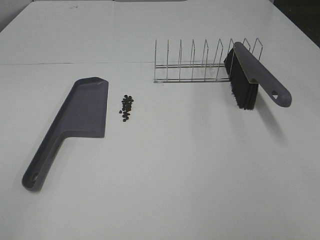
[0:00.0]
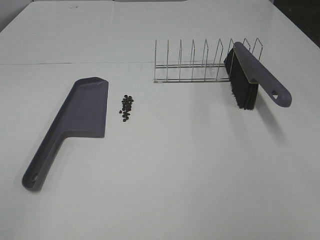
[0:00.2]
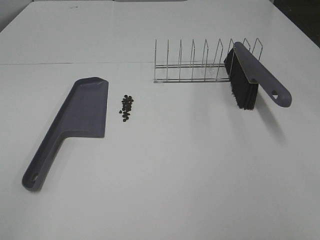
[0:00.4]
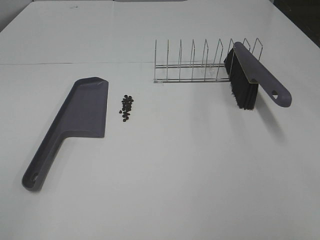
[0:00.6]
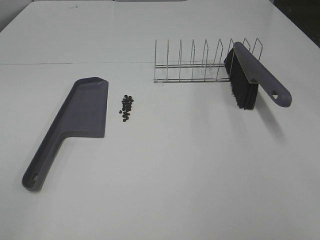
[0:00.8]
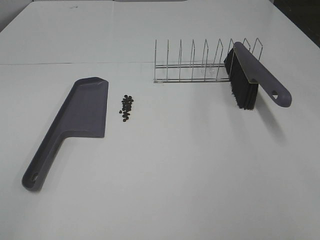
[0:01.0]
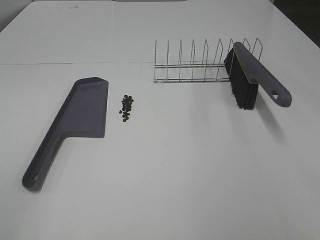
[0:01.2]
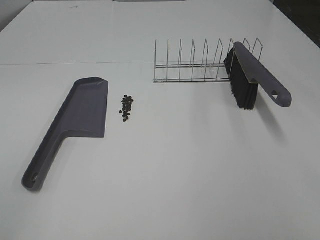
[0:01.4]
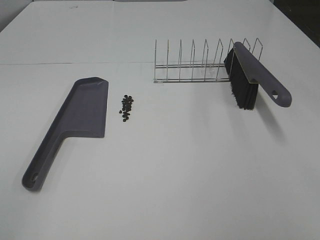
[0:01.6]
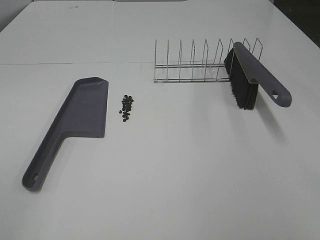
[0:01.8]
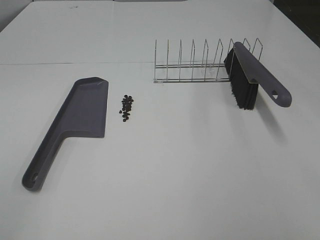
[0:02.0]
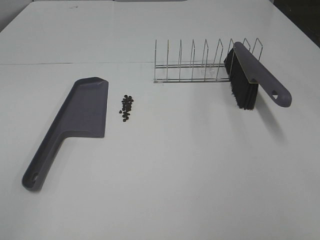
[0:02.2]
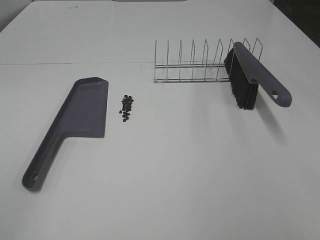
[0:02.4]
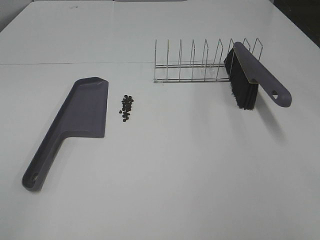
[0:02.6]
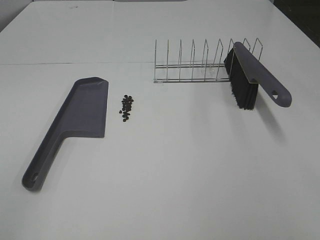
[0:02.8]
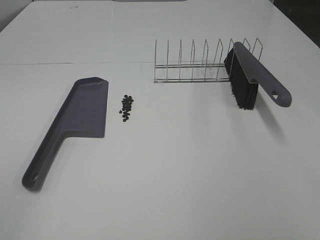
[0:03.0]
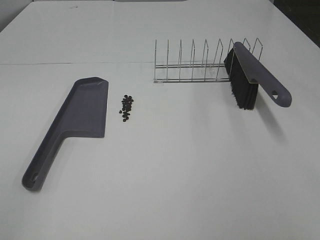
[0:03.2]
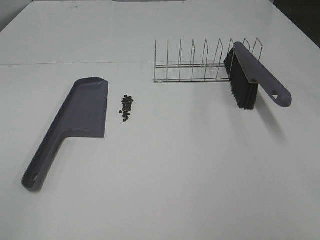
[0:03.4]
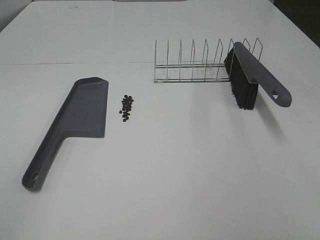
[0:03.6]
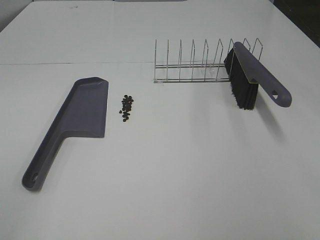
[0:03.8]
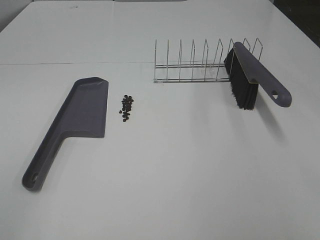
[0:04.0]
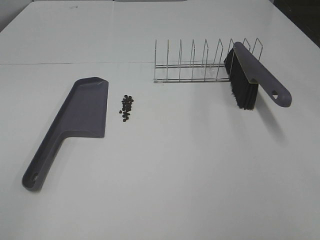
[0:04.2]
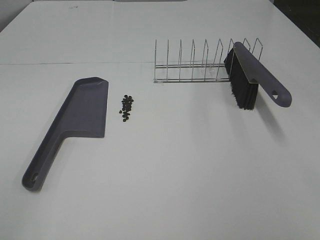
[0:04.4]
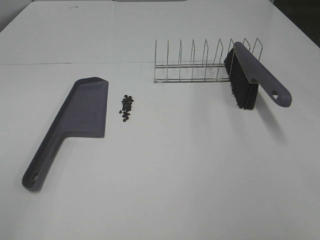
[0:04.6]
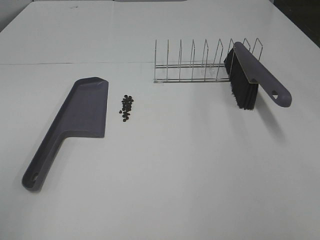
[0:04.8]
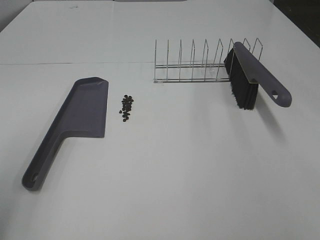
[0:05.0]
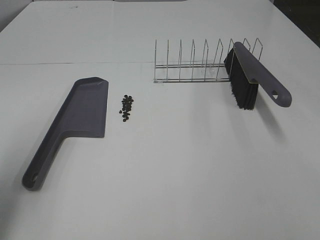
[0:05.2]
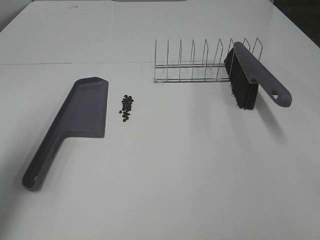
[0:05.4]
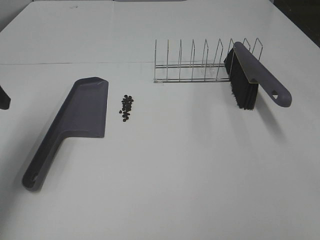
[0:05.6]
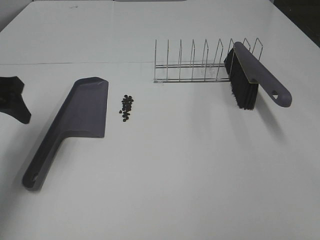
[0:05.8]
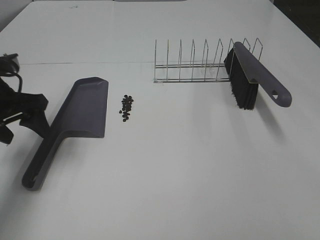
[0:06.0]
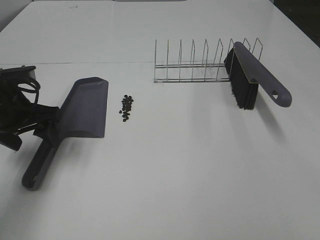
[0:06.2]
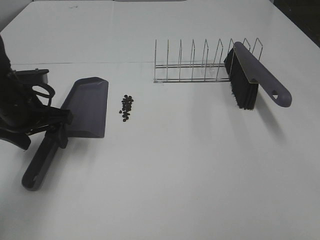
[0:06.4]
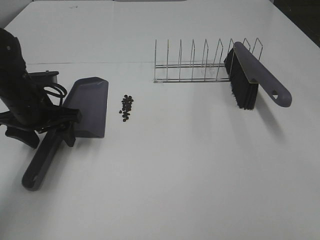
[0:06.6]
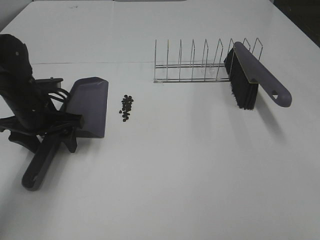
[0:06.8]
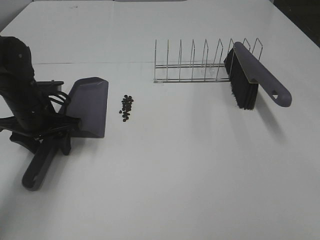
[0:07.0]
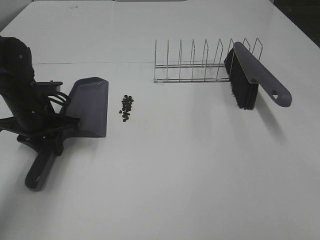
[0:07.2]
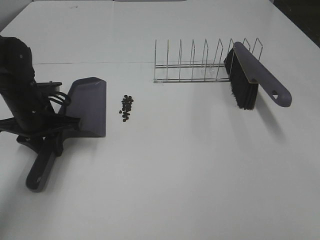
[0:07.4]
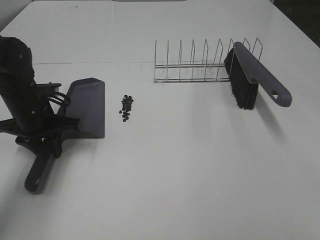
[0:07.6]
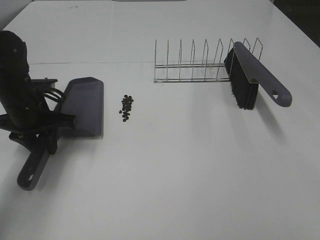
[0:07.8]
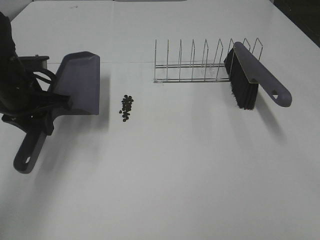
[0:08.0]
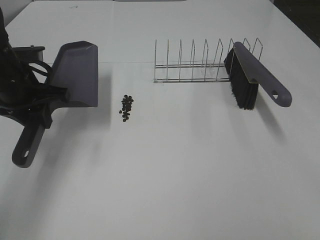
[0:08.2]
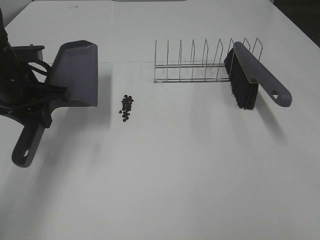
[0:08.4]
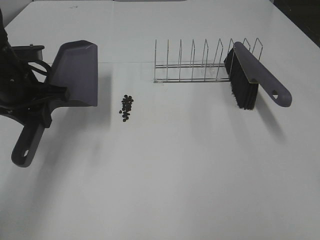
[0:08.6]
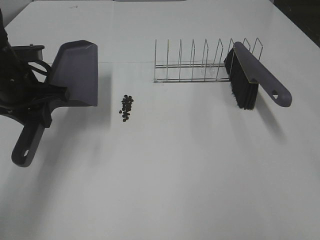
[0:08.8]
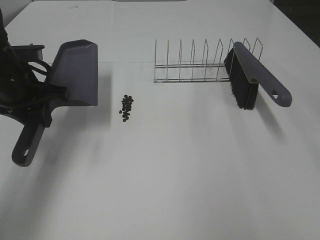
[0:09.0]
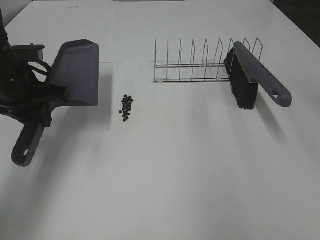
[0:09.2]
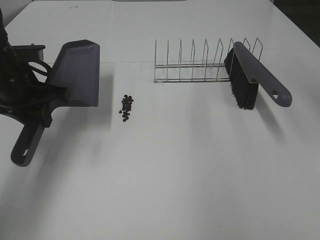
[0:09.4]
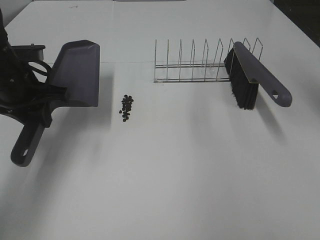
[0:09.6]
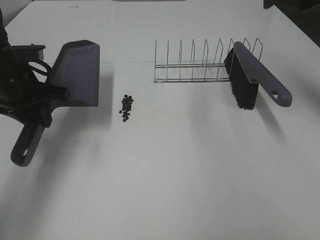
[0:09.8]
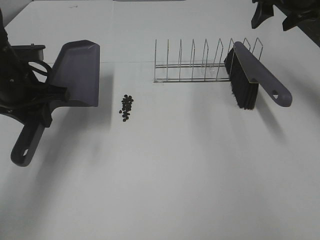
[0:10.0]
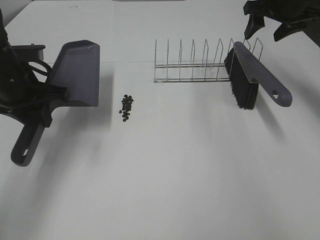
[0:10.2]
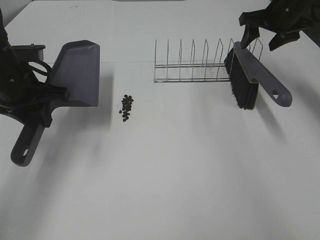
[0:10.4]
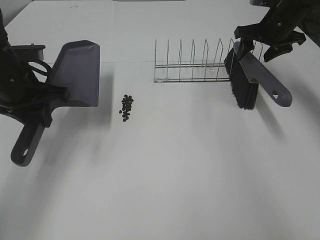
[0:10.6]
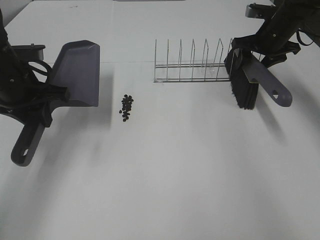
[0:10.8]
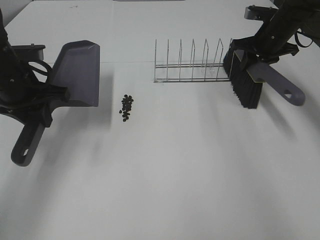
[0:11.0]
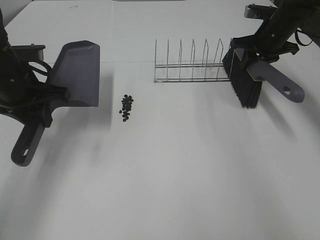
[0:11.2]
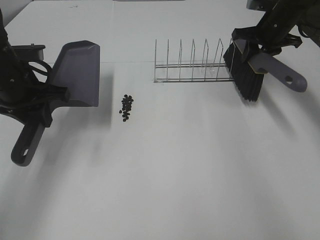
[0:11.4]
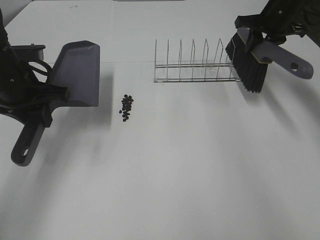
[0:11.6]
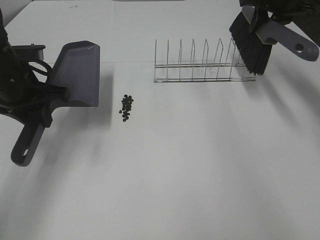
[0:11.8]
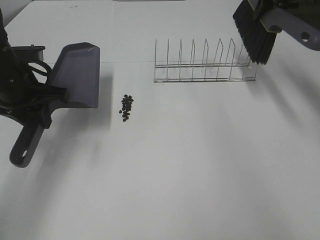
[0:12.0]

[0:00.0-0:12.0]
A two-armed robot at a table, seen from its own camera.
Task of the whole recording: Sweep Coffee Bean.
Step, 0:00.0 to 0:07.2: Left hand: grab the dustpan.
Step, 0:08.4 to 0:10.8: Right hand:grab the broom.
0:00.0 to 0:04.4: Both grippers stay about where they are.
0:04.4 to 0:06.0: The left gripper goes some 30 cm forward.
0:06.0 to 0:07.6: The left gripper shifts roughly 5 cm downward, and closes up.
0:07.6 to 0:09.0: The left gripper travels upward by some 10 cm.
0:09.0 to 0:10.4: The right gripper is displaced forward and downward by roughly 35 cm.
0:10.4 to 0:12.0: The right gripper shifts roughly 10 cm upward, and closes up.

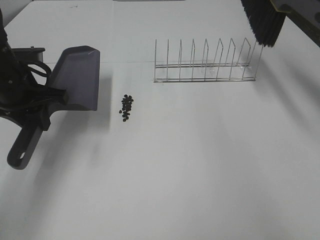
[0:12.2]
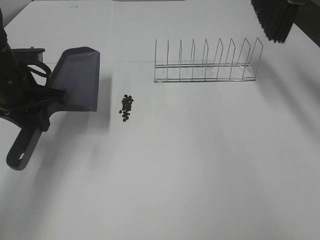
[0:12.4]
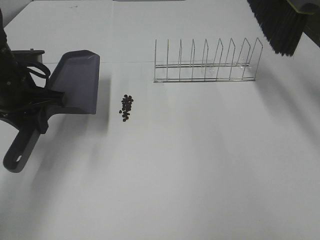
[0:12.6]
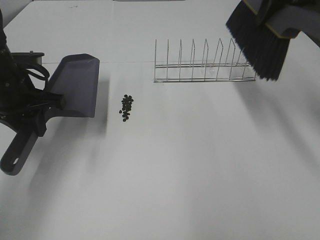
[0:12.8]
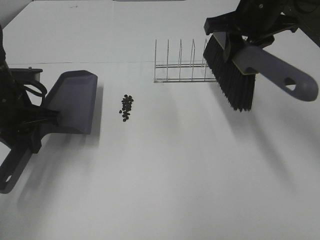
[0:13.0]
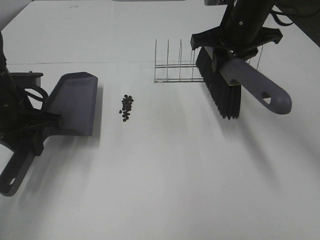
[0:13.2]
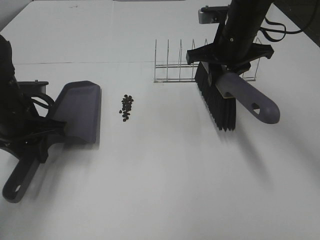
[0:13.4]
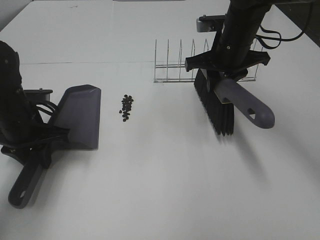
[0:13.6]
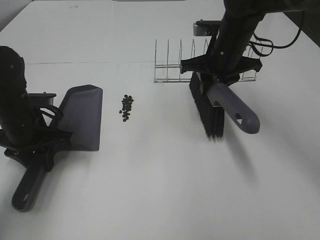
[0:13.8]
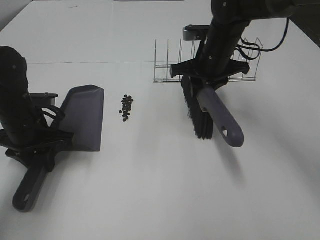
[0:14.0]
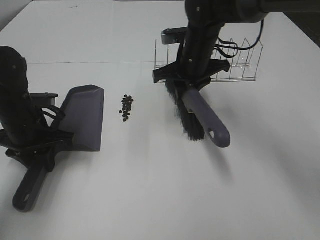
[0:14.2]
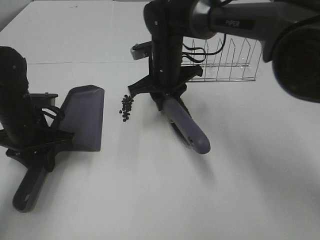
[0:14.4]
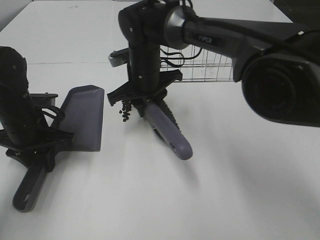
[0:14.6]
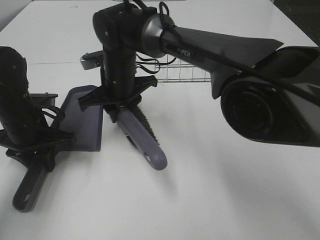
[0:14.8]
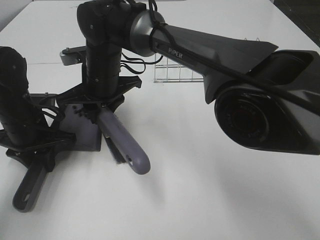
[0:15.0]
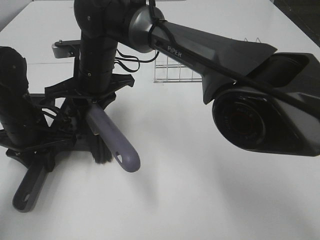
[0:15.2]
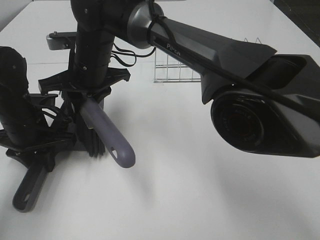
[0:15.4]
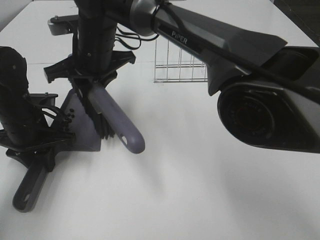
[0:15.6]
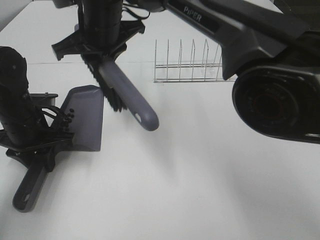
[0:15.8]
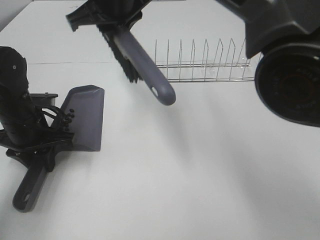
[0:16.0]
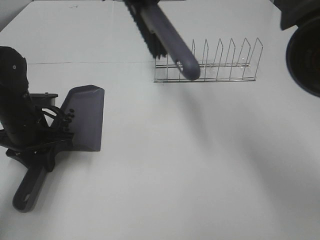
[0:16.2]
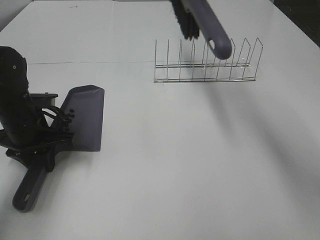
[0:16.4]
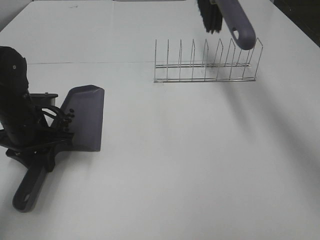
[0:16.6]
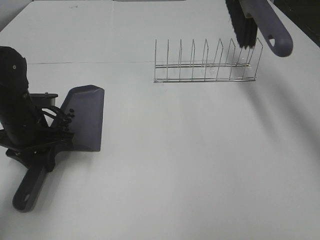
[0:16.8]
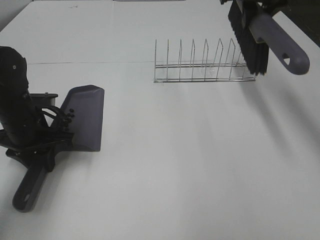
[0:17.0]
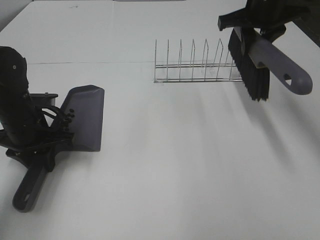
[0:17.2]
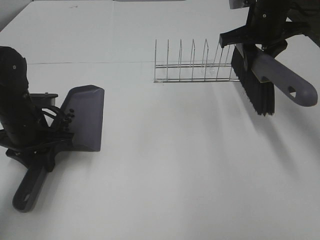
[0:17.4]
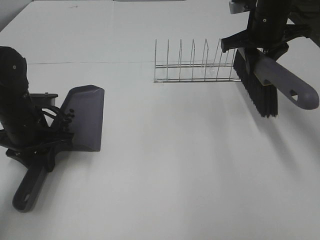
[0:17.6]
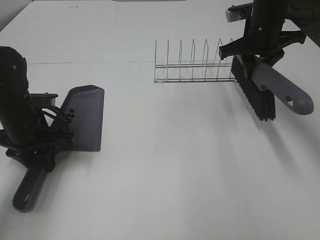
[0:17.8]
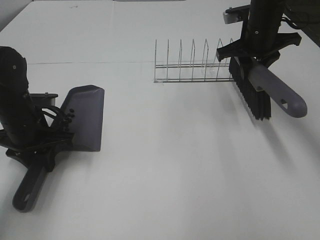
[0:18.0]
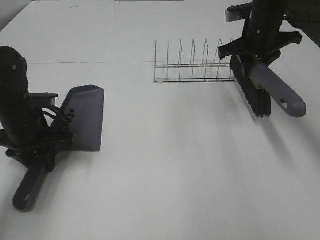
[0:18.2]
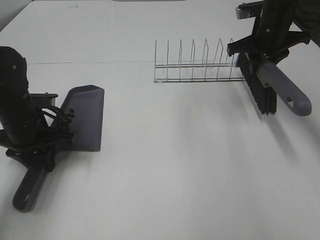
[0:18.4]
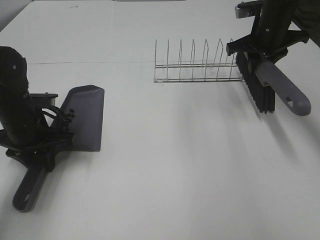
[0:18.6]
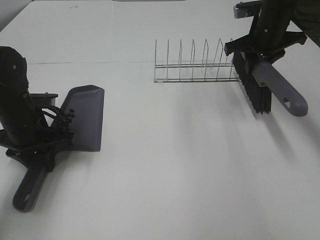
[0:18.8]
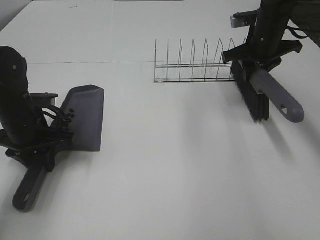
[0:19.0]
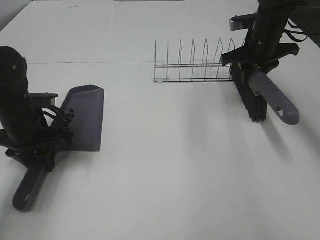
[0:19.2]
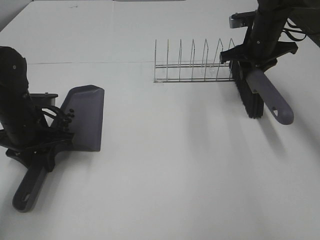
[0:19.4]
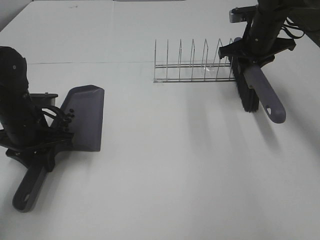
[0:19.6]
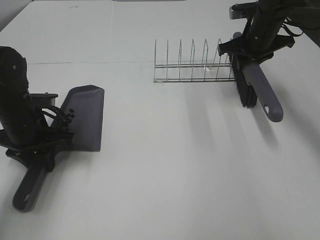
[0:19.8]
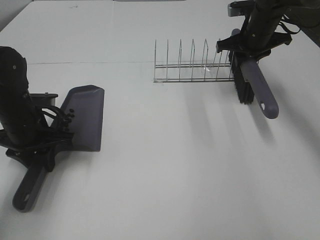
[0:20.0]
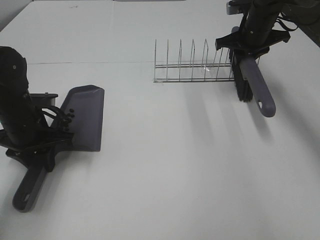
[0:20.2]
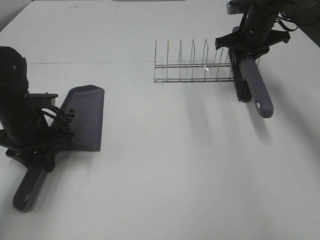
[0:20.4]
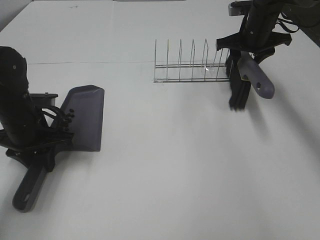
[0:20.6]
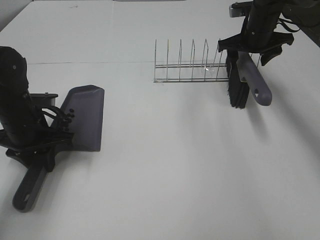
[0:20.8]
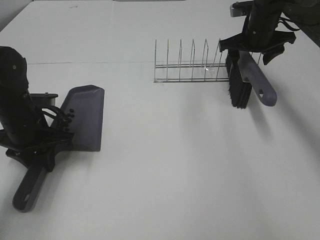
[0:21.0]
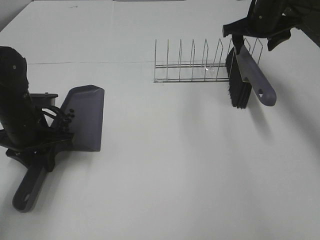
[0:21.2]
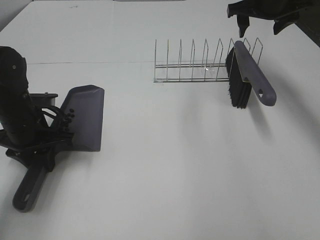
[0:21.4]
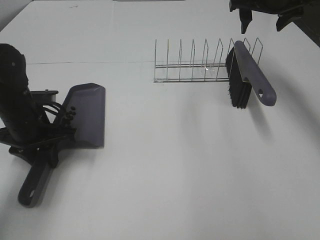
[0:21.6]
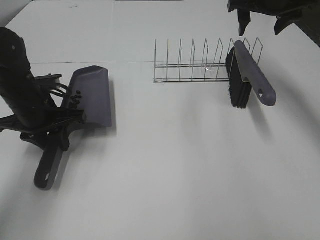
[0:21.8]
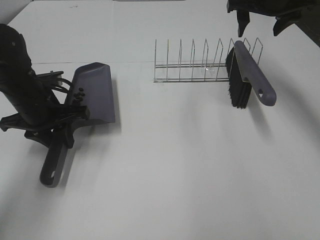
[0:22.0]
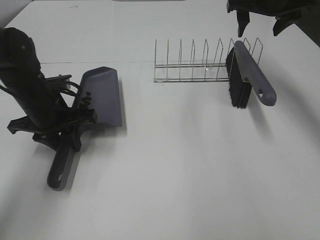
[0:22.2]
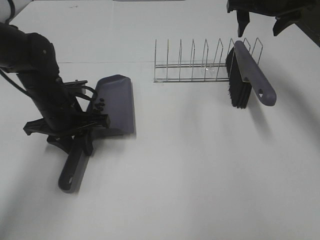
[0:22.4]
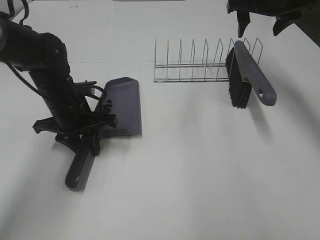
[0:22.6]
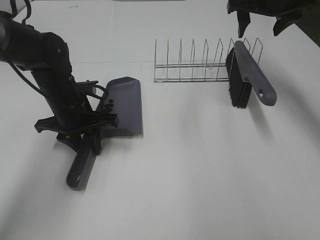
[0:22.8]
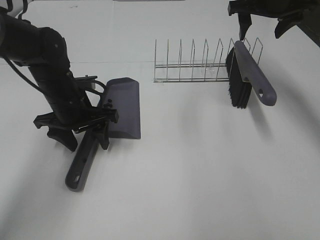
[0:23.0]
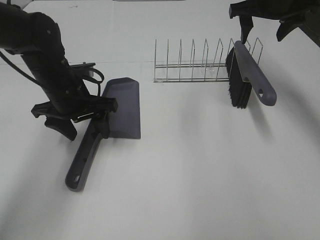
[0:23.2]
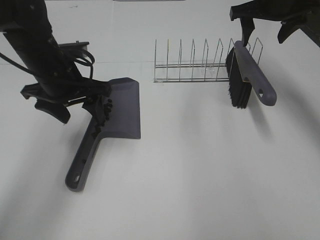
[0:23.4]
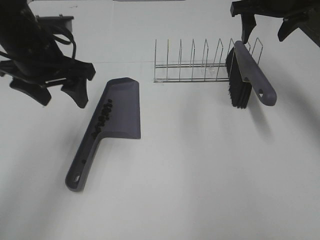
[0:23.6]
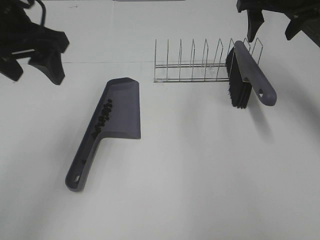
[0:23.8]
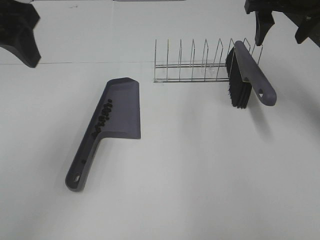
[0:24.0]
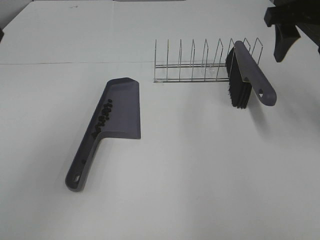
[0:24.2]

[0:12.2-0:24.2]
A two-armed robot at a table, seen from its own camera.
Task of the whole recording: Sweep Coffee Bean.
Step, 0:12.2 to 0:15.4: Right hand:sweep the coffee beans into the dustpan.
Step, 0:15.6 to 0:20.8: Right hand:place the broom on the rack.
Step, 0:21.0 to 0:23.0: Left hand:place the dustpan on the table.
0:12.2 to 0:13.8: The right gripper is displaced downward and to the left by about 20 cm. Meanwhile the left gripper travels downward by approximately 10 cm.
0:13.8 to 0:15.2: The right gripper moves to the left, about 25 cm.
0:15.2 to 0:16.6: The right gripper shifts approximately 30 cm to the right and upward.
0:16.6 to 0:18.2: The right gripper heads downward and to the right, covering roughly 20 cm.
0:18.2 to 0:19.8: The grippers stay close to where they were, moving slightly.
0:19.8 to 0:21.2: The right gripper opens its fingers.
0:21.2 to 0:22.6: The right gripper changes place by some 5 cm; the left gripper shifts about 5 cm to the right.
0:22.6 to 0:24.2: The right gripper moves backward, roughly 15 cm; the left gripper is displaced upward and backward by approximately 30 cm, and opens.
